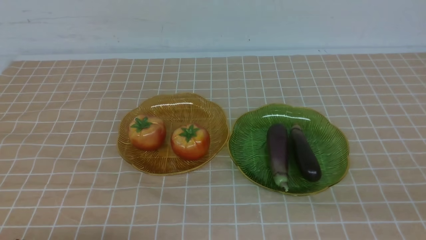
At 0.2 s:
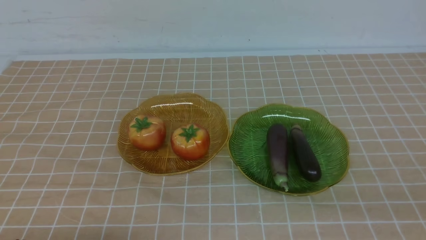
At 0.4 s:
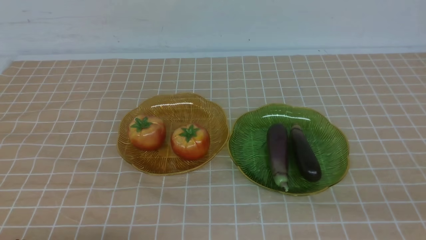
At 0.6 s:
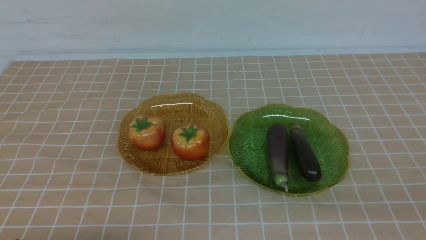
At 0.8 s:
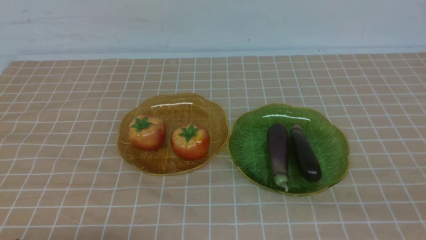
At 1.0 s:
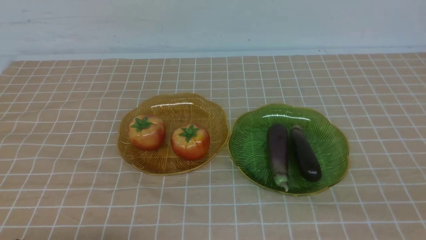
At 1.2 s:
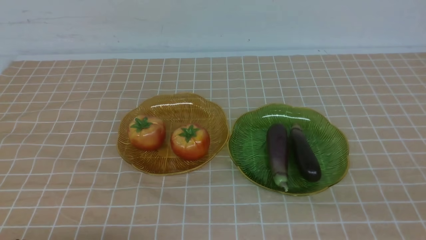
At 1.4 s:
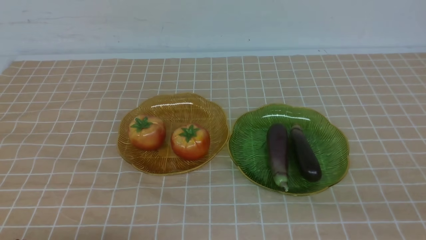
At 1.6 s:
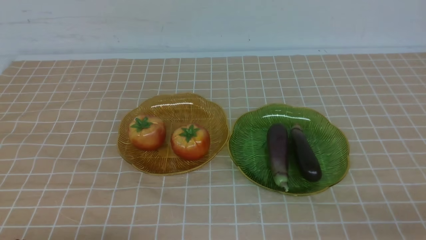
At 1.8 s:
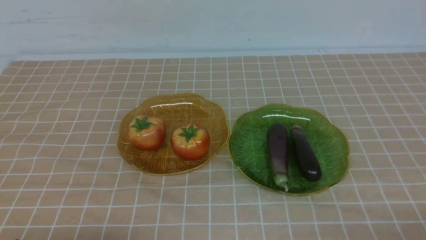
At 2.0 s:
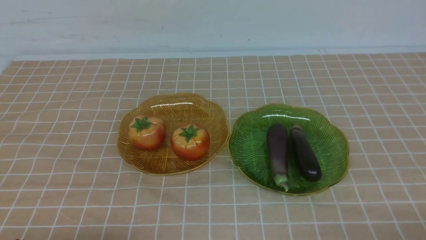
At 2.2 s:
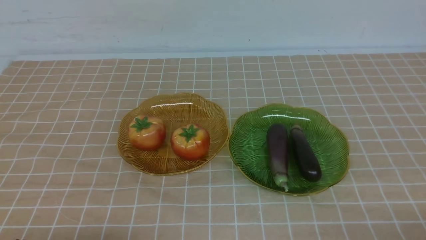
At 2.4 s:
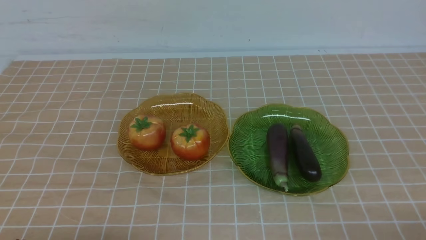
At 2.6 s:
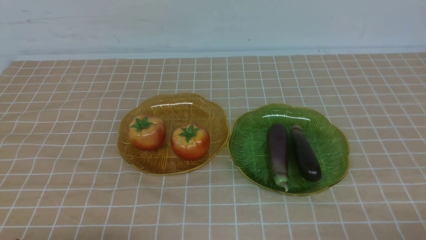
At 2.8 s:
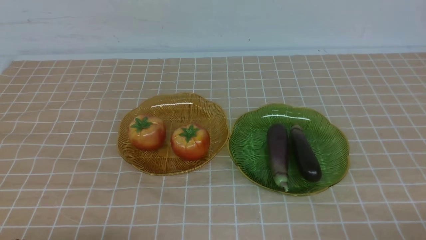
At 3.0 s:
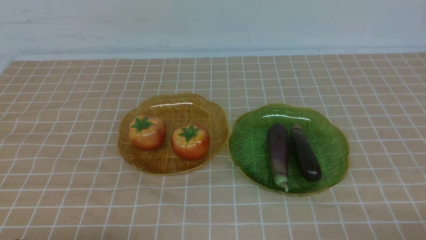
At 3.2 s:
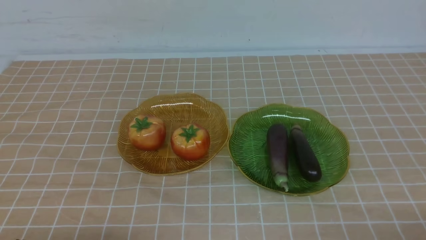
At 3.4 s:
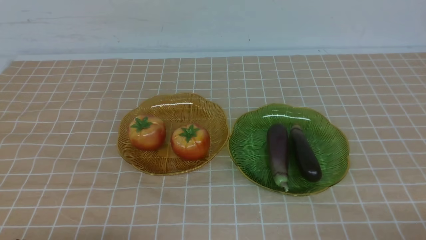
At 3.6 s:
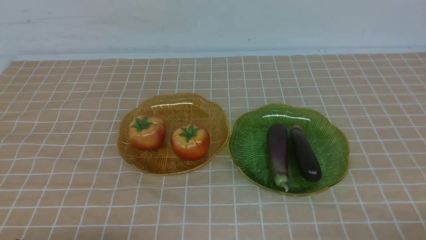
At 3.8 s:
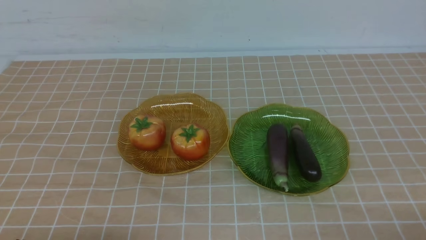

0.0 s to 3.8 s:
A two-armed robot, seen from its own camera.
2.6 to 3.8 s: Both grippers stay about where they are.

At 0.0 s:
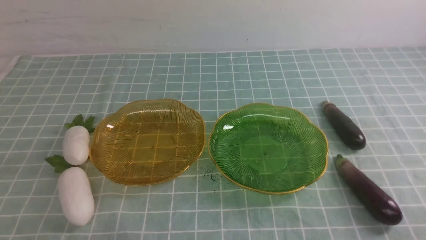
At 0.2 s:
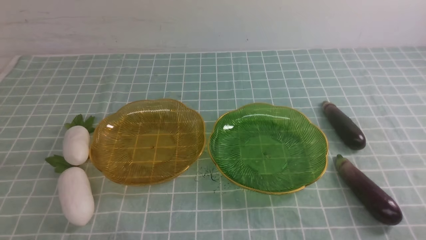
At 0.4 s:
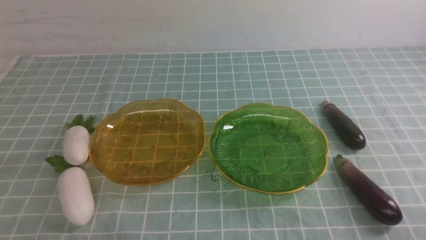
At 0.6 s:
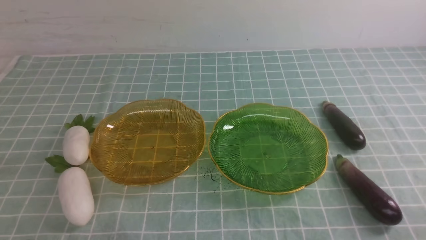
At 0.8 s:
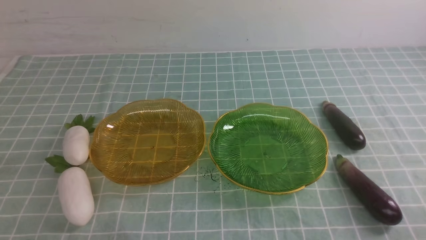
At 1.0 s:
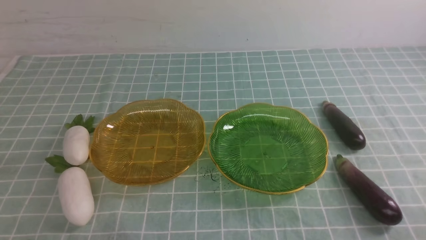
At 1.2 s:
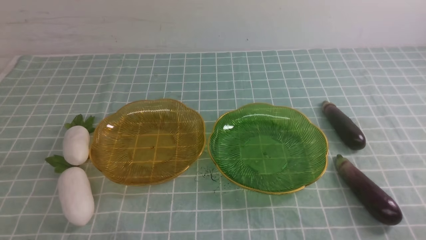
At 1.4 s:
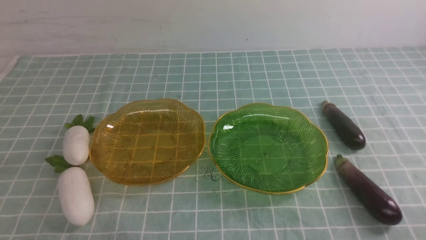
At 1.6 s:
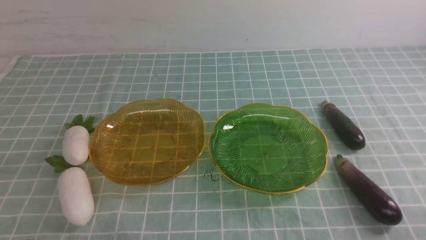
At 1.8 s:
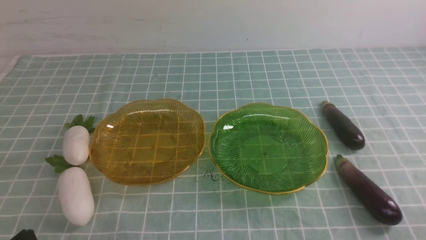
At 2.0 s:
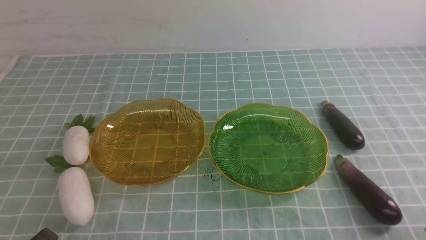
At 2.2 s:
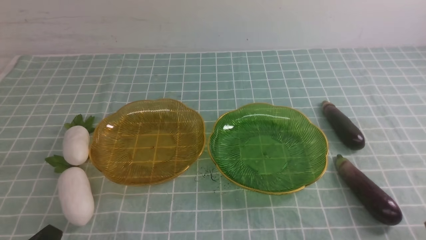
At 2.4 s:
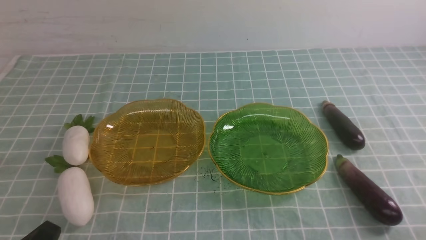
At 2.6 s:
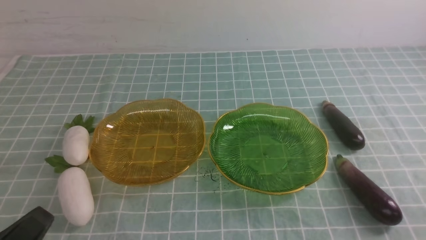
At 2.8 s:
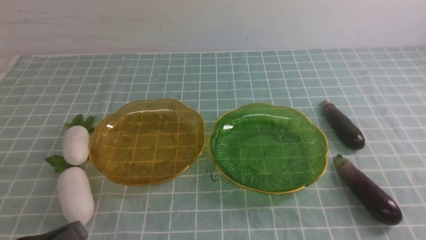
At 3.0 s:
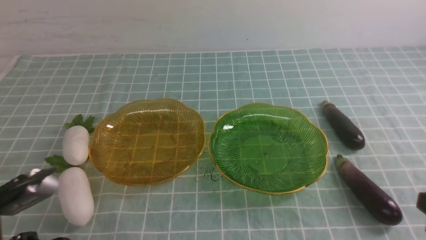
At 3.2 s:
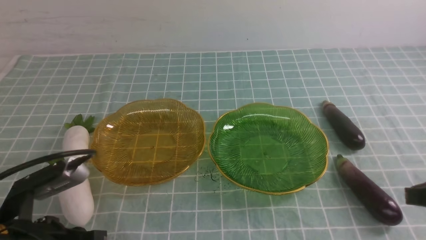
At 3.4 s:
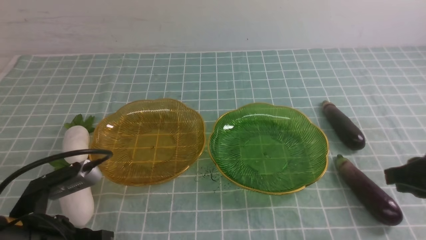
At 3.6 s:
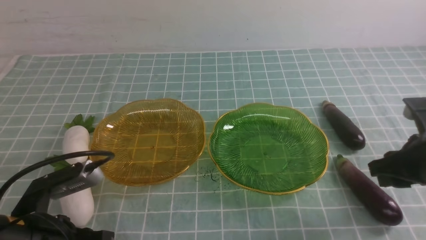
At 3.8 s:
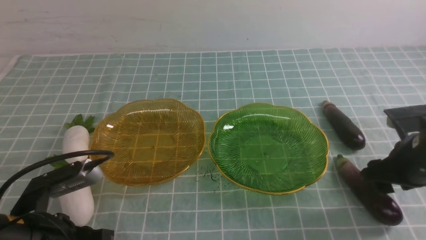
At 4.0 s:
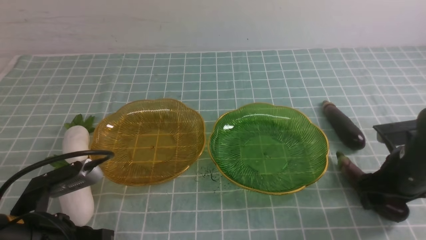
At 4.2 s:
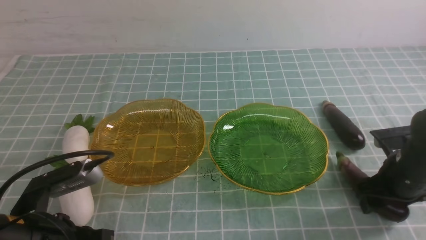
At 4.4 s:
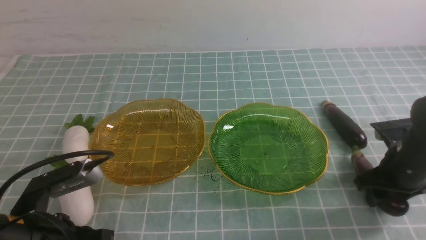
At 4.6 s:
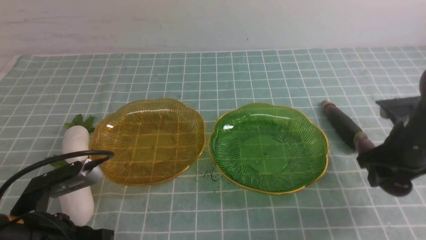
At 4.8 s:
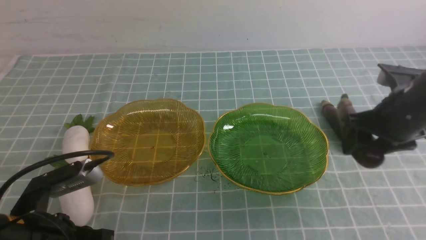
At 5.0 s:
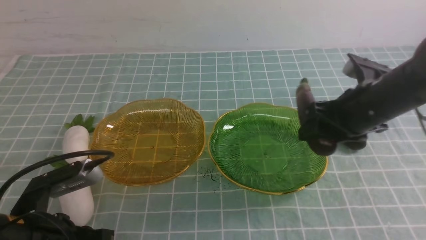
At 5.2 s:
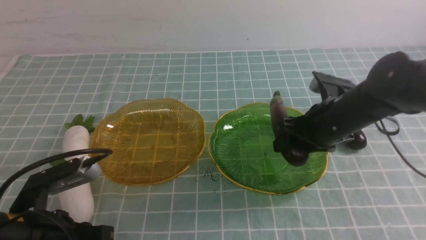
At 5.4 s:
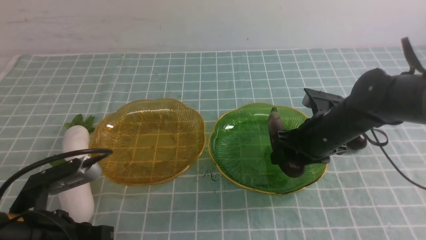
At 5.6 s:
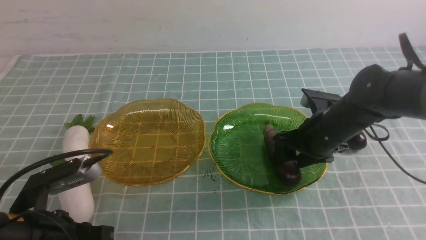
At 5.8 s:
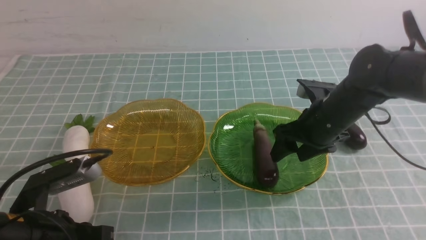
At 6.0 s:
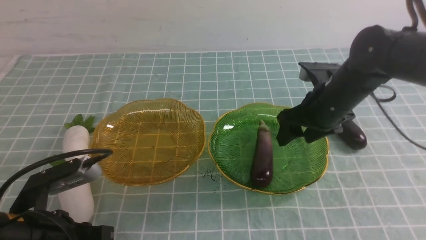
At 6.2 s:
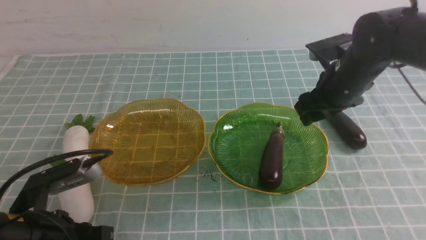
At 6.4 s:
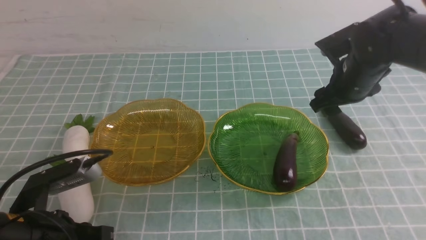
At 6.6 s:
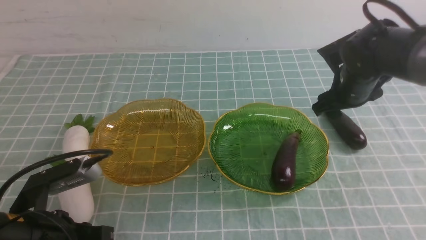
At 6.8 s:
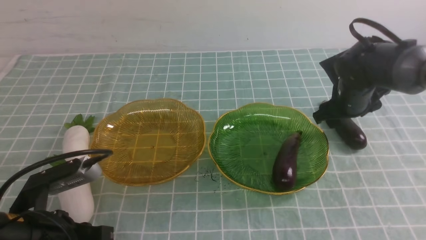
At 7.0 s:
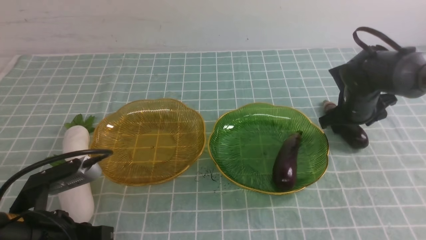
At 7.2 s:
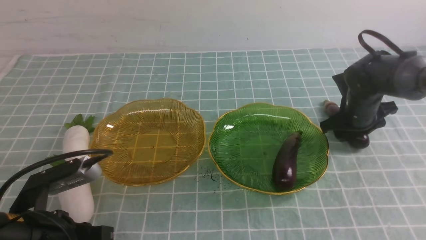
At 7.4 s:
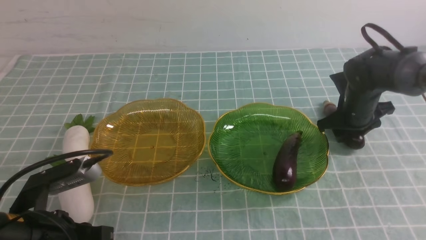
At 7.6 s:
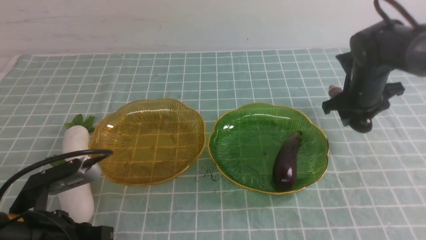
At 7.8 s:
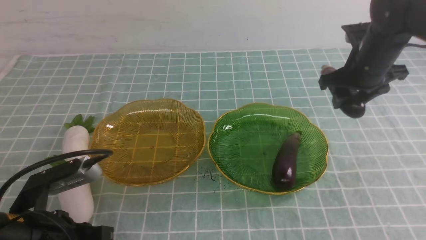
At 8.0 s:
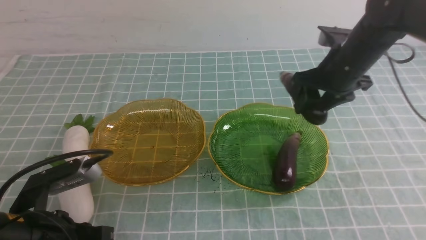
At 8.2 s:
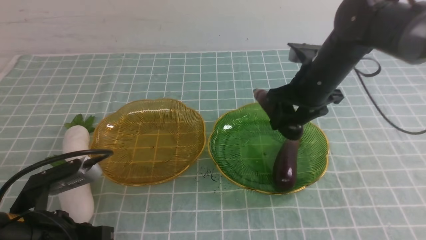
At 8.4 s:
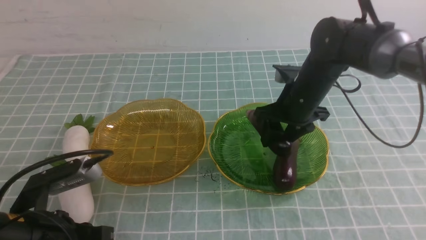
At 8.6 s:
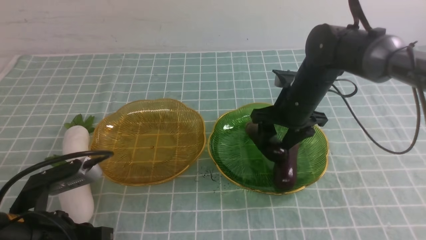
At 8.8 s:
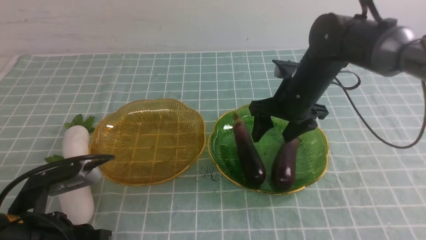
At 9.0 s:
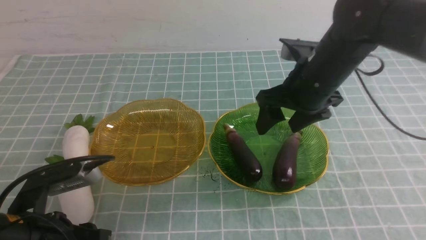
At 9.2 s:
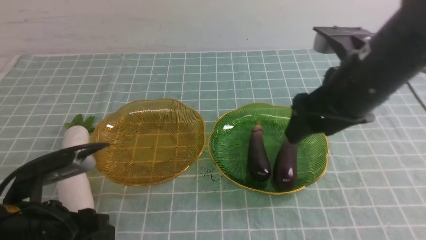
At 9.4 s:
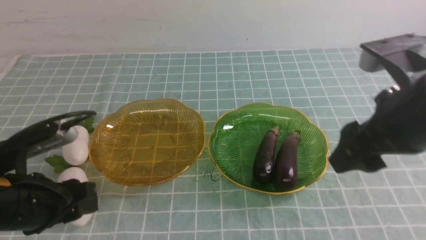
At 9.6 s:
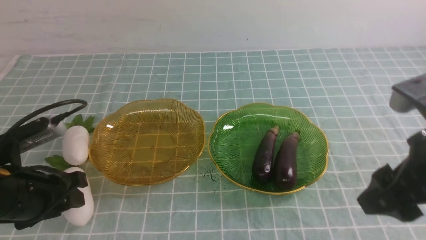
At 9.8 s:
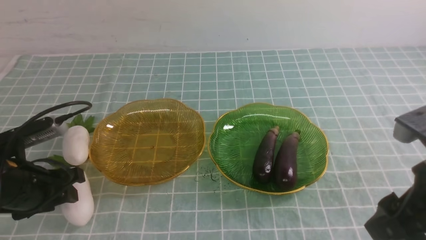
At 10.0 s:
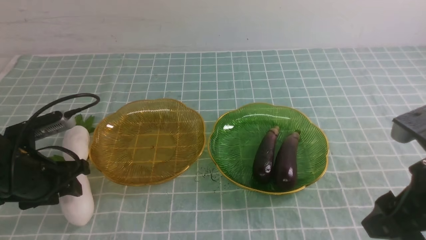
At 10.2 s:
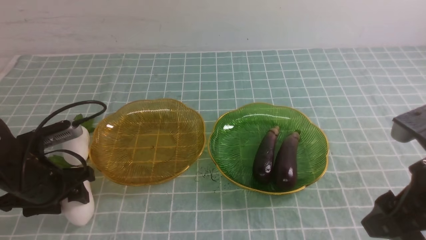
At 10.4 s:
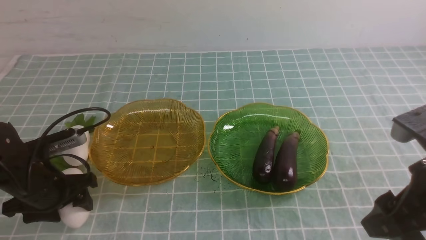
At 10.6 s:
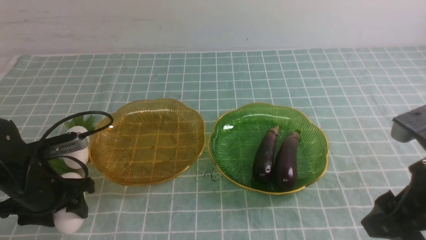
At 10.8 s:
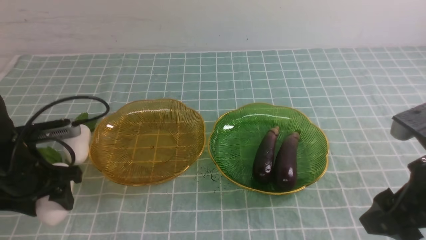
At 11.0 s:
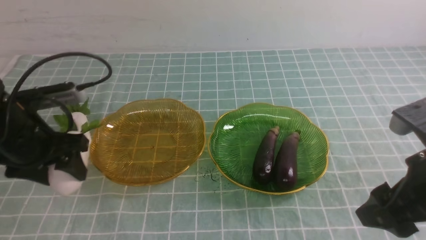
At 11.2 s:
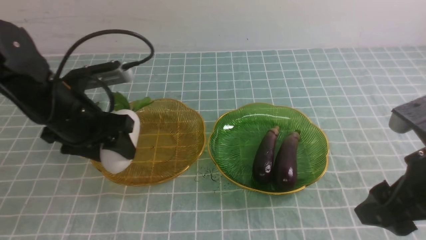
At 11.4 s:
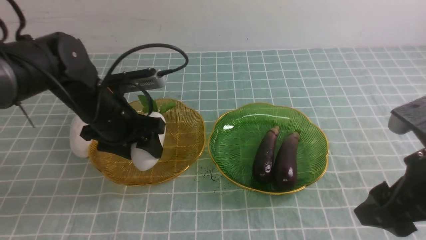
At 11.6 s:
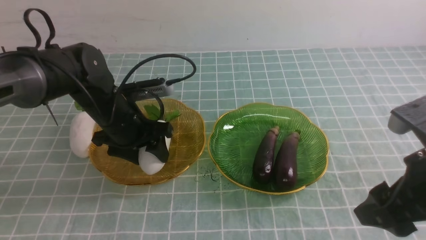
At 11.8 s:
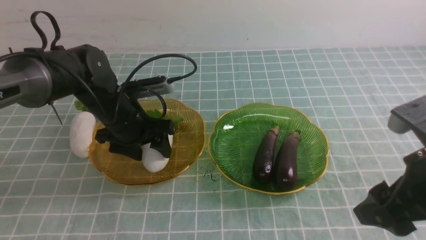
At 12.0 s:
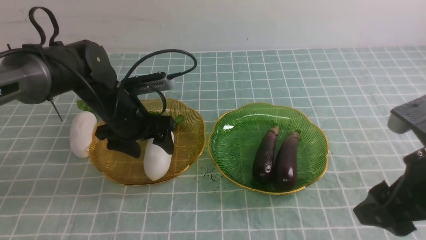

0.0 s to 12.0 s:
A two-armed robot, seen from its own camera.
Step, 0.0 to 8.8 s: use the right arm to grab an eggplant and put it into the right plate.
1.6 to 3.0 s: The left gripper goes approximately 5 cm upward.
3.0 to 4.4 s: The left gripper changes place by roughly 5 cm. Meanwhile the right gripper is displaced forward and downward by approximately 20 cm, and opens its fingers.
4.4 to 6.0 s: The right gripper goes about 15 cm to the left, forward and upward.
6.0 to 7.6 s: The right gripper heads to the right and forward, covering about 10 cm.
7.6 to 9.0 s: The left gripper opens up. The right gripper travels to the left, upward and backward by some 15 cm.
9.0 to 10.4 s: The left gripper heads forward and to the left, covering roughly 15 cm, and opens its fingers. The right gripper is displaced backward and to the right by roughly 20 cm.
10.4 to 12.0 s: The left gripper shifts some 15 cm to the right and forward.

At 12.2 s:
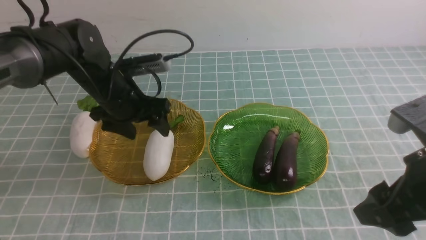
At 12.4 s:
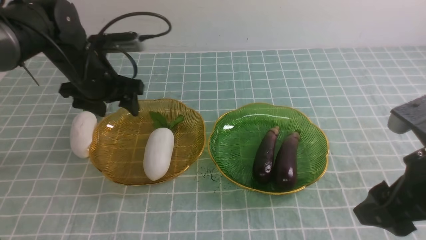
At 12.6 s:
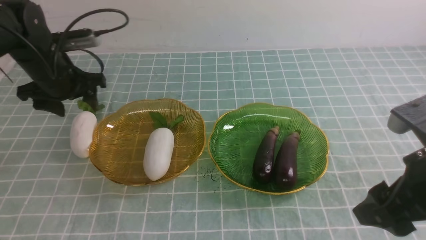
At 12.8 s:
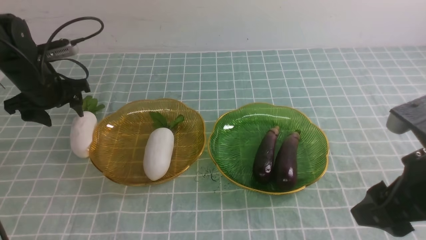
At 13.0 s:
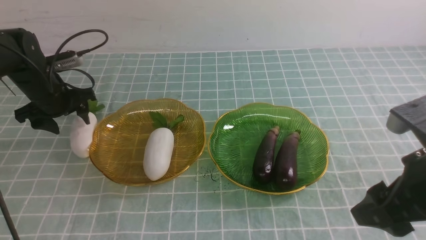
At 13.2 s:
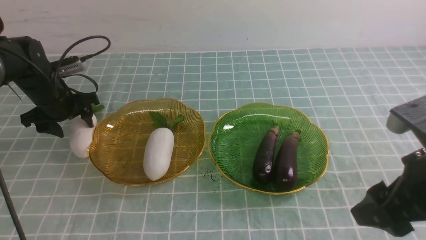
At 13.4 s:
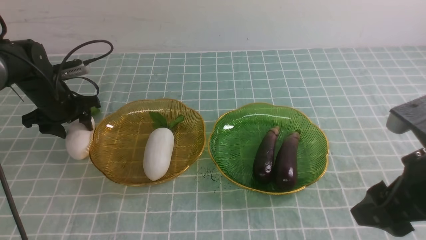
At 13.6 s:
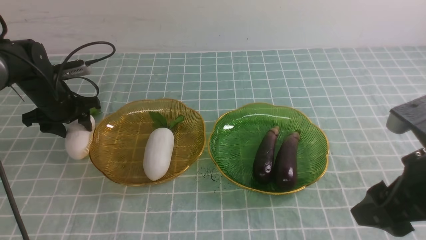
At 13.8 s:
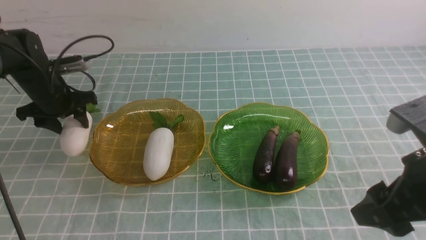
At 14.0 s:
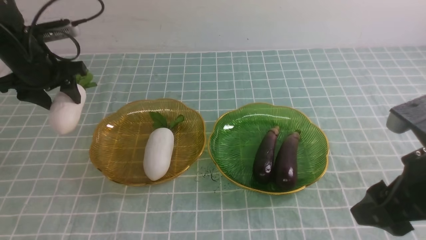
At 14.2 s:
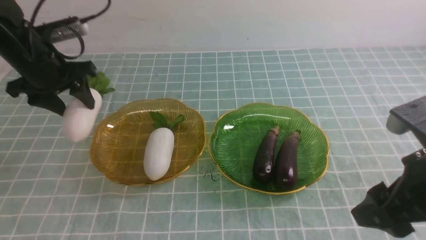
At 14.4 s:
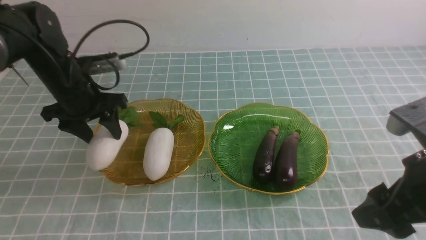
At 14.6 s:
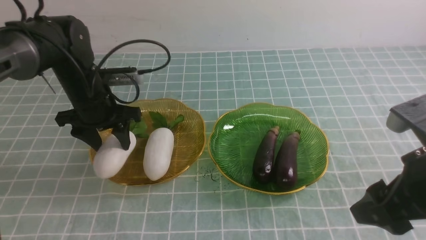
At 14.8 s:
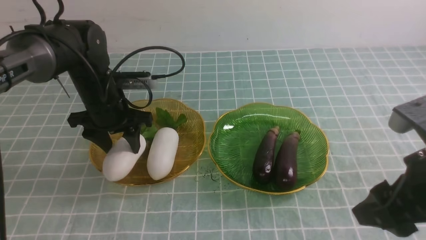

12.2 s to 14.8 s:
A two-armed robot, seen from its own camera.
12.2 to 13.4 s: The left gripper travels to the left and forward by roughly 15 cm.
13.4 to 14.8 s: The left gripper shifts some 10 cm to the right.
